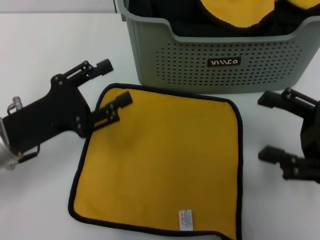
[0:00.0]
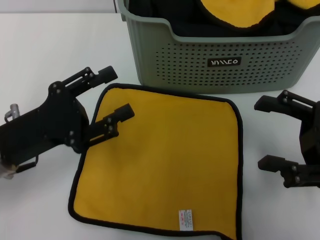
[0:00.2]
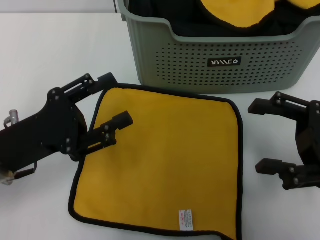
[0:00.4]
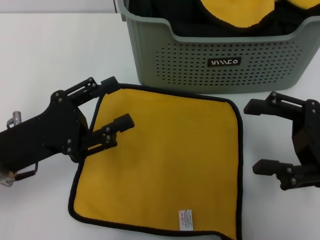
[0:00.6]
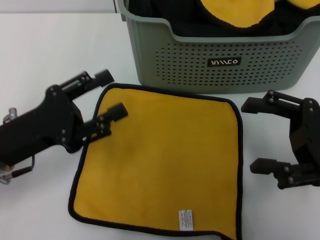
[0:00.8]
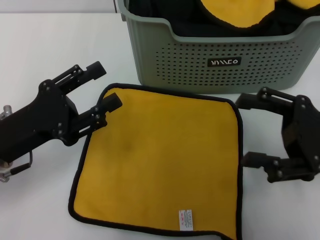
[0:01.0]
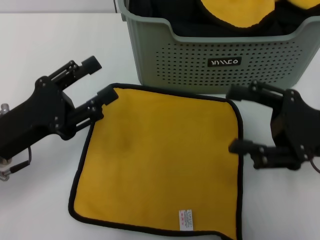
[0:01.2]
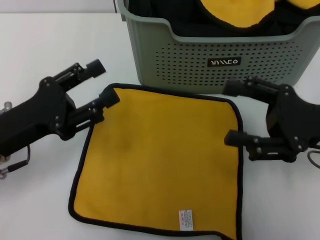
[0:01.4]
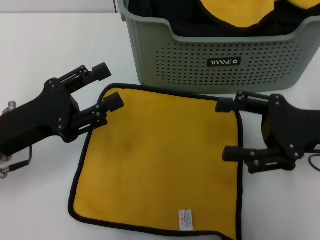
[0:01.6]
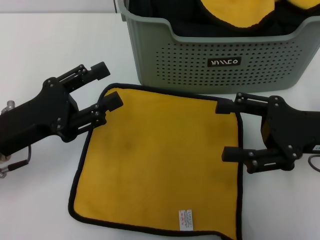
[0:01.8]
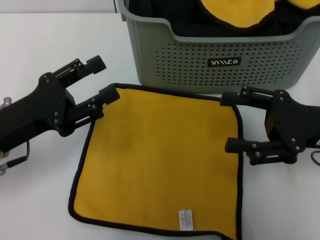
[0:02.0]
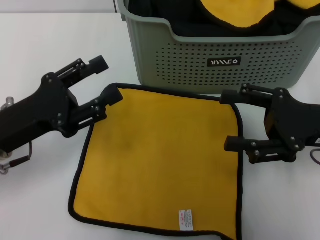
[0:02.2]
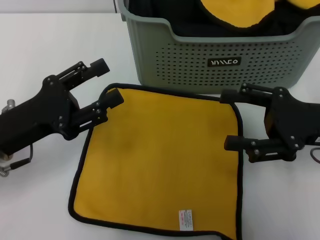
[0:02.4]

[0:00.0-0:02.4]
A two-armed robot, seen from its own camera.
Task of the whole recording: pick up the towel from the storage box and lay it flat on the table.
0:00.0 to 0:02.4: The grippers move only a little.
